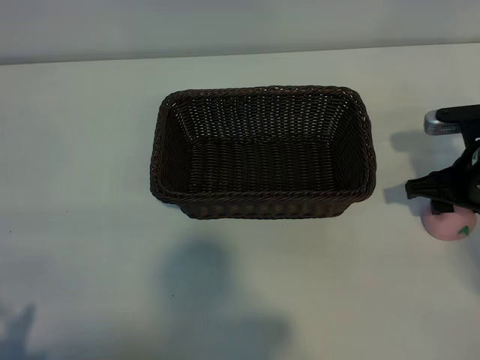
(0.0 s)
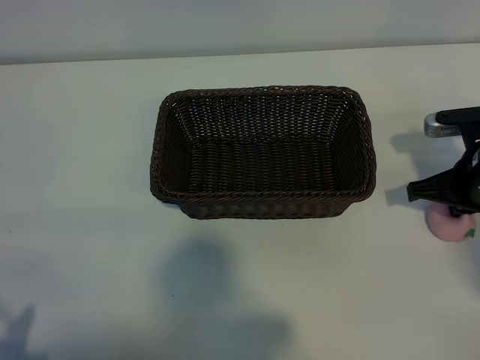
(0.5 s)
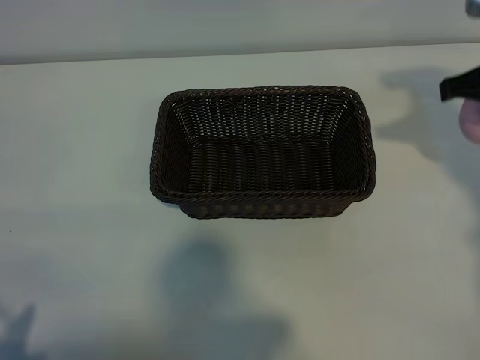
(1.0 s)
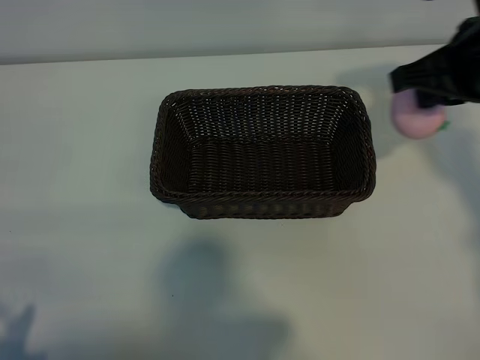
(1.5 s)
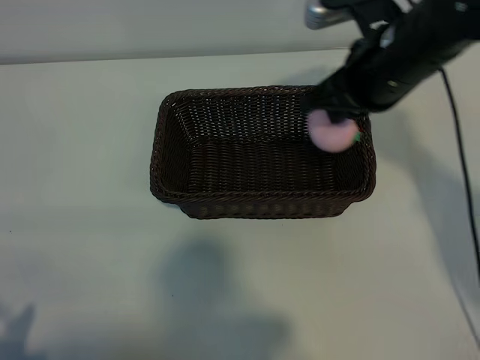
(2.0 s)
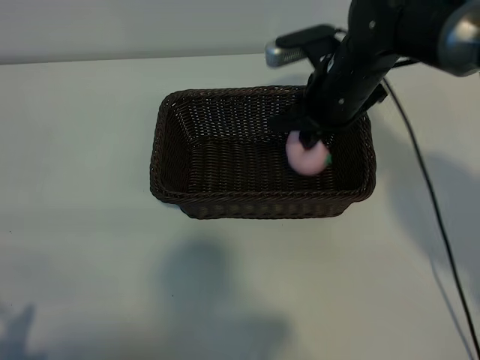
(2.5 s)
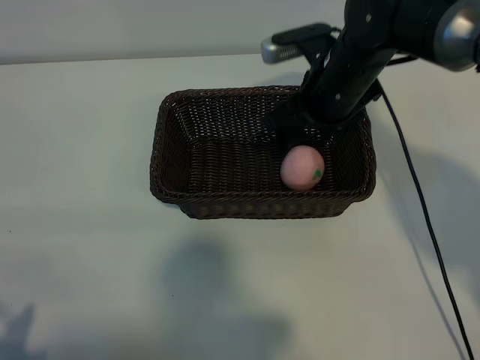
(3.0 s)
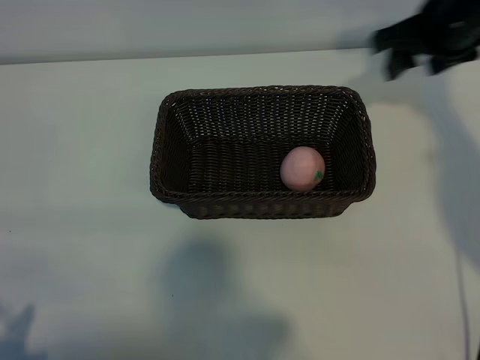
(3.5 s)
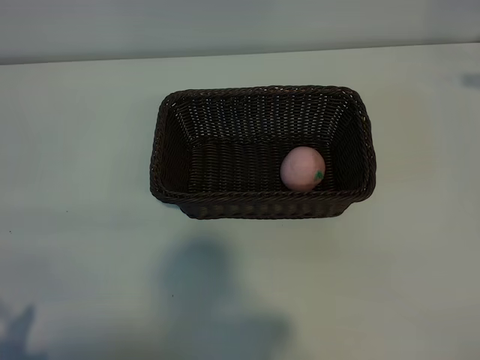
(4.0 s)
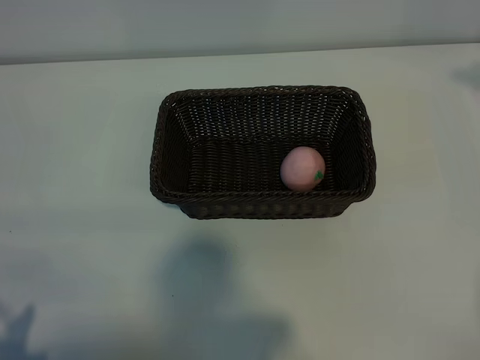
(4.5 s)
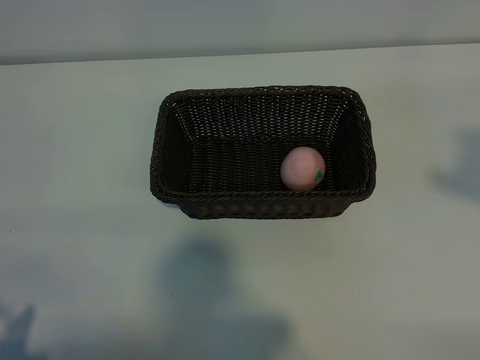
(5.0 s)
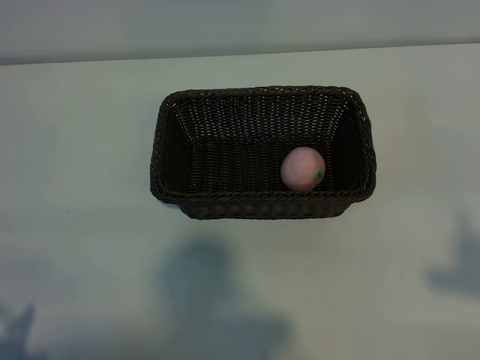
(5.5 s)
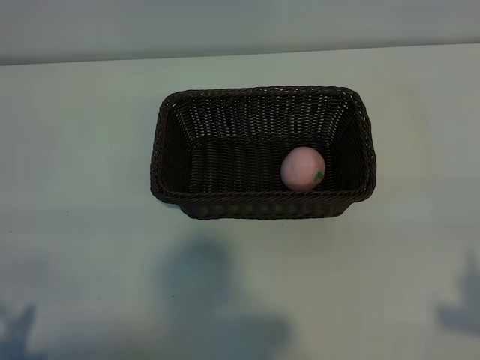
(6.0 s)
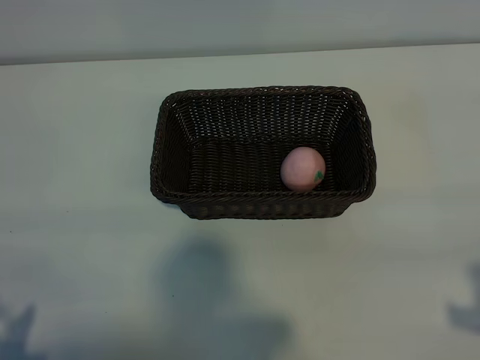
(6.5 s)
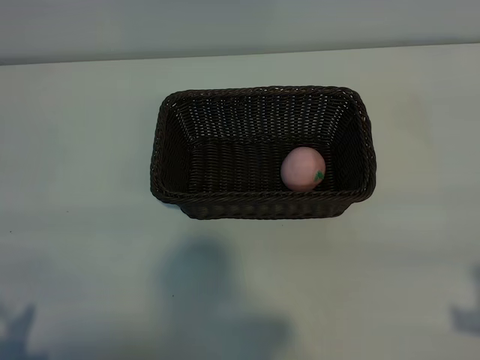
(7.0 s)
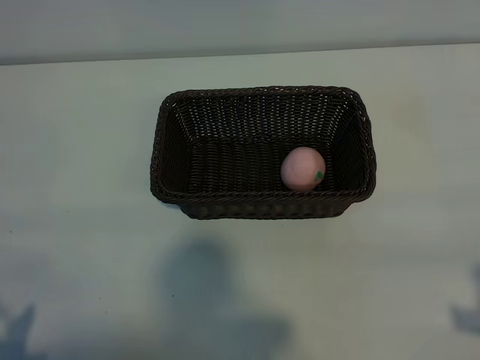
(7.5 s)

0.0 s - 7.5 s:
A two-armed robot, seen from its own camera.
Task of the whole recording: pick up the peach and put it into the basket.
Step, 1.0 s - 2.5 s: Place the peach in the basket with right gripper.

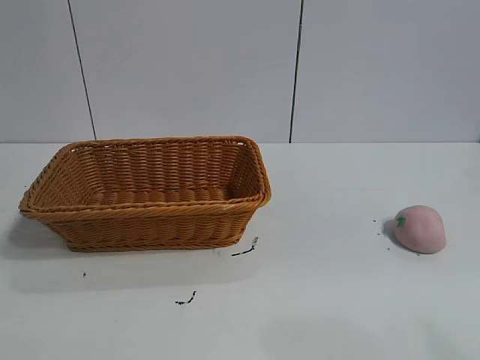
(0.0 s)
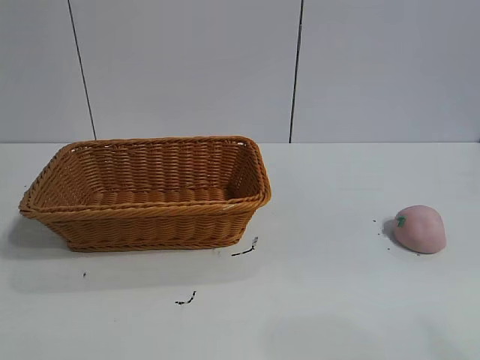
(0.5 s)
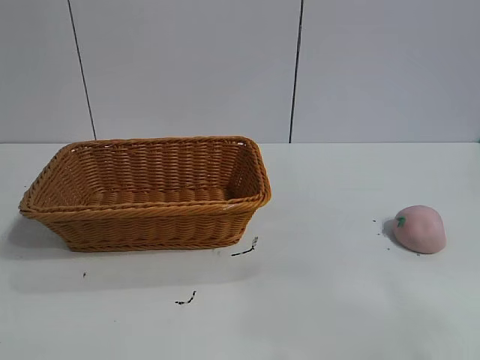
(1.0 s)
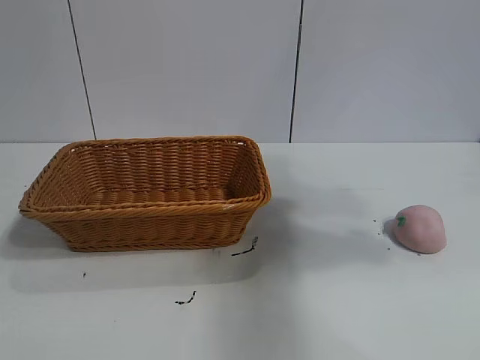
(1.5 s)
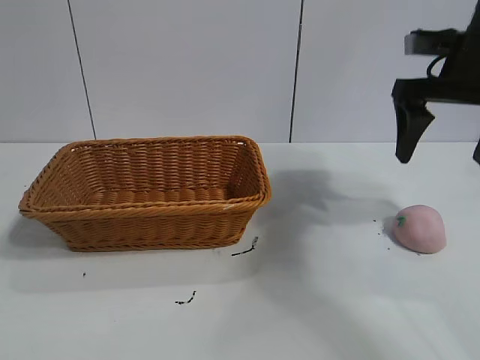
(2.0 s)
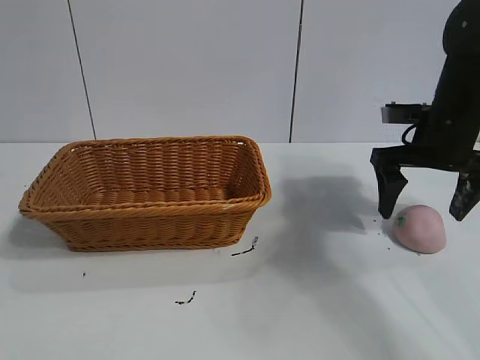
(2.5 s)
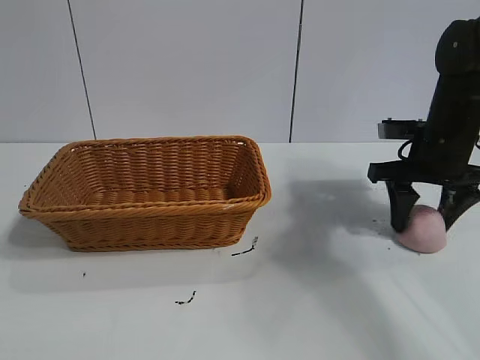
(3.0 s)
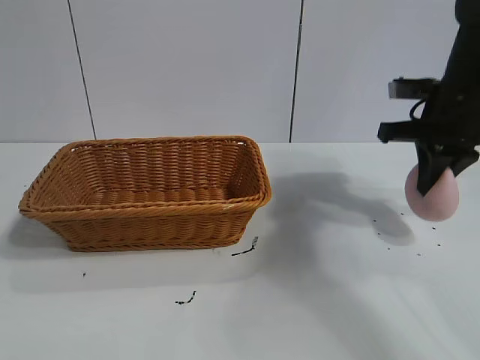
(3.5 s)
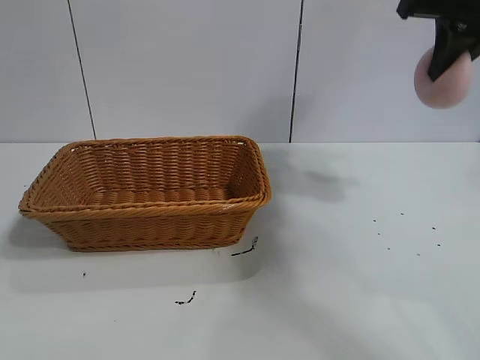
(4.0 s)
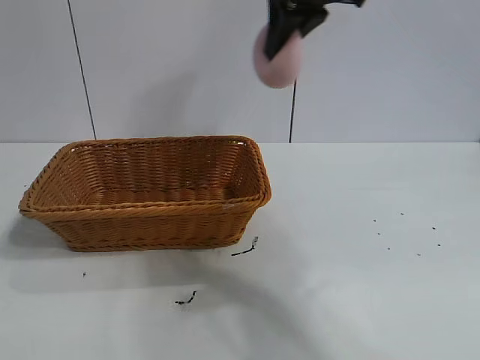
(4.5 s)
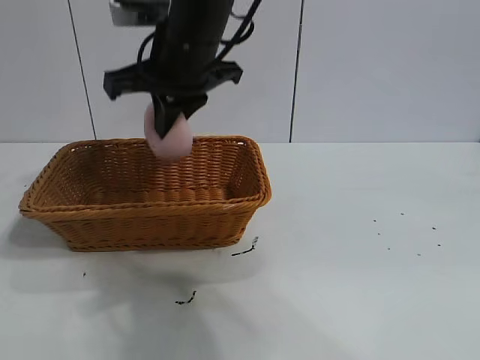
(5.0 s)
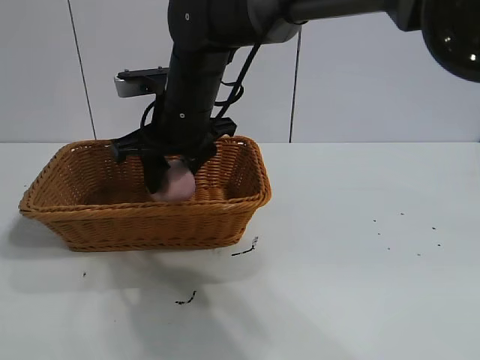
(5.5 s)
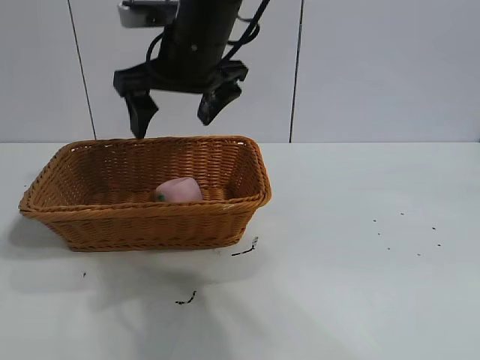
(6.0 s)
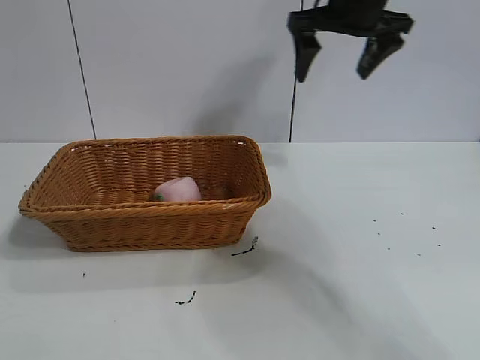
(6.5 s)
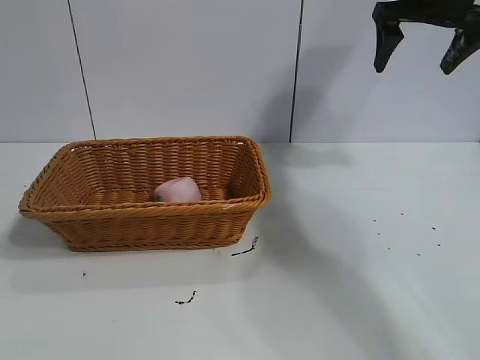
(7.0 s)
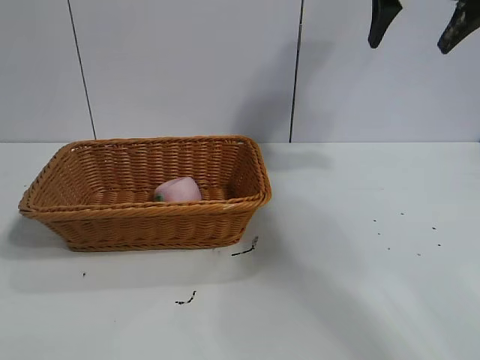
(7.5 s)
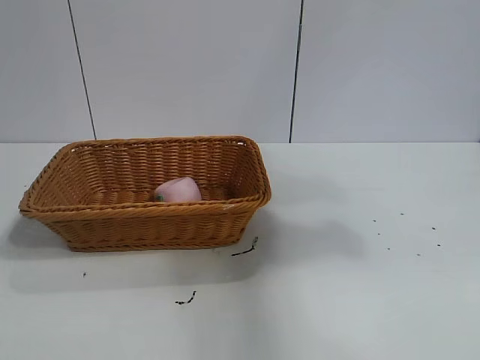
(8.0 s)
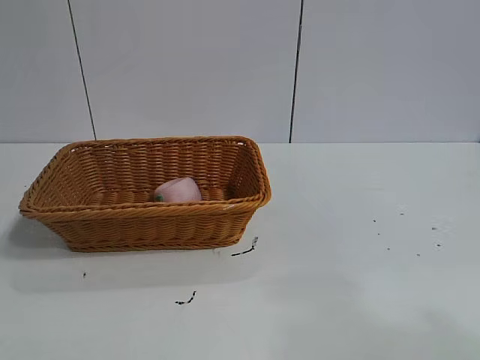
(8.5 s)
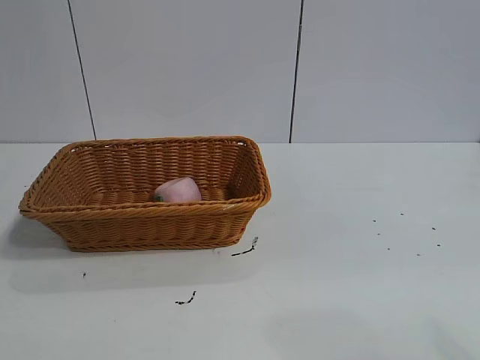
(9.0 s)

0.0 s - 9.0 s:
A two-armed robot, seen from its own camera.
Task of the whole recording: pick up the peach and put it into the basket.
Step, 1.0 s - 3.0 s: Grasp the peach with right gripper.
Step, 3.5 s - 5.5 s: Place the peach in the basket with right gripper.
